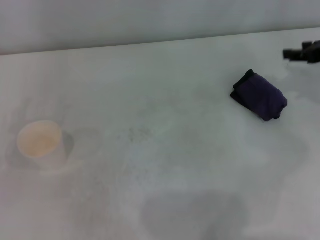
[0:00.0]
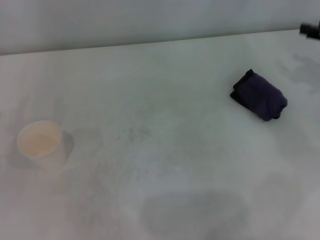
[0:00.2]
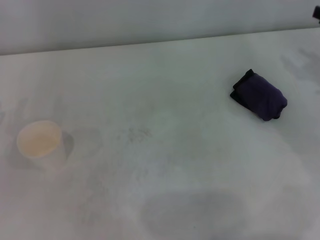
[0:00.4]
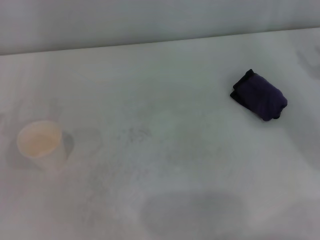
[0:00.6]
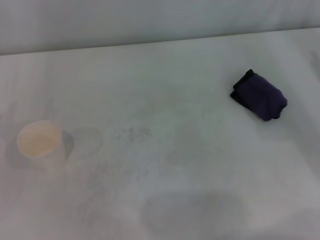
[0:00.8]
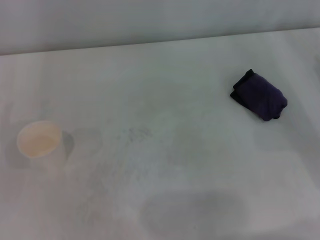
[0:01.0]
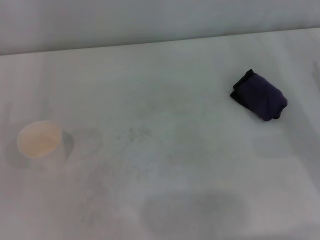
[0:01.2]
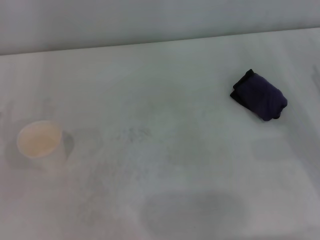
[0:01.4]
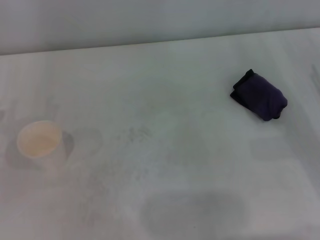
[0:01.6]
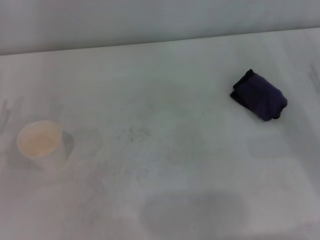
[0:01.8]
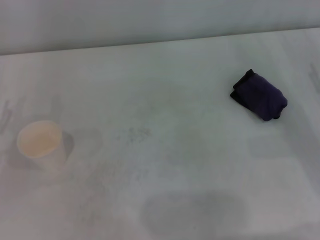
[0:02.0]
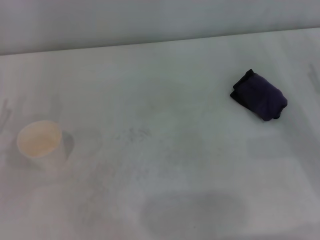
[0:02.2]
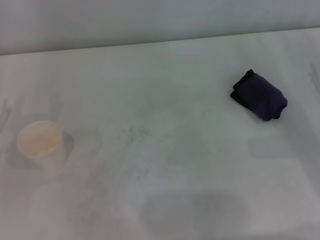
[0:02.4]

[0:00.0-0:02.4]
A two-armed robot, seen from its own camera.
0.0 to 1.2 s: The right gripper moves downward and backward, about 10 cm.

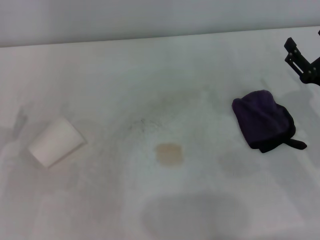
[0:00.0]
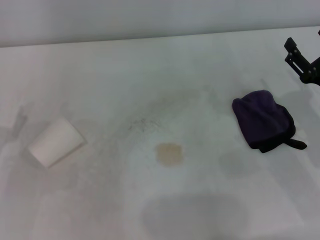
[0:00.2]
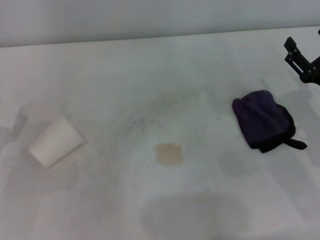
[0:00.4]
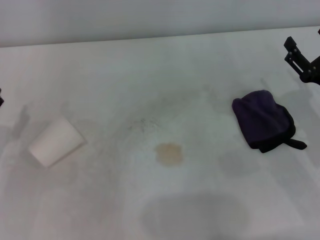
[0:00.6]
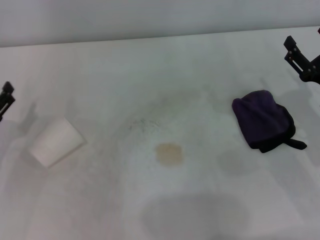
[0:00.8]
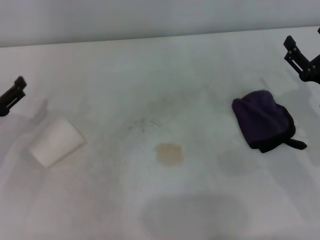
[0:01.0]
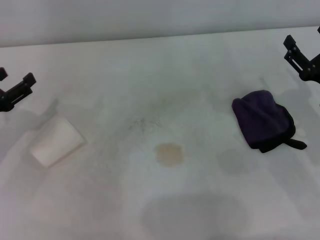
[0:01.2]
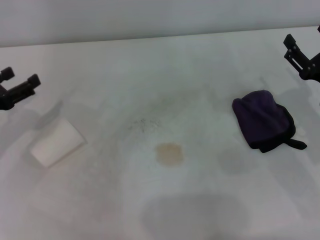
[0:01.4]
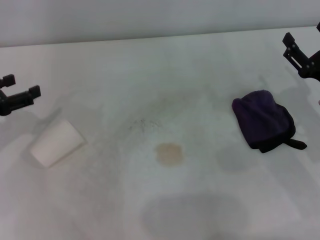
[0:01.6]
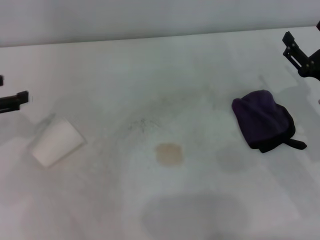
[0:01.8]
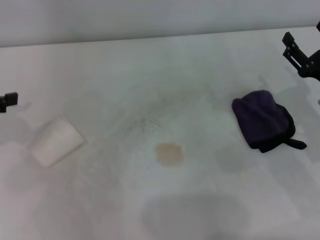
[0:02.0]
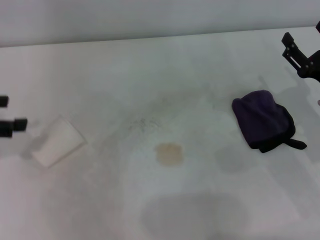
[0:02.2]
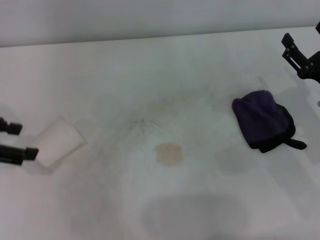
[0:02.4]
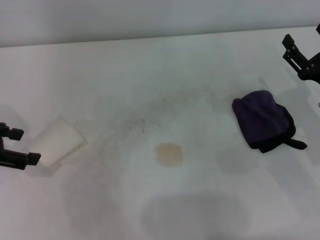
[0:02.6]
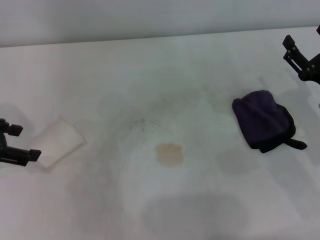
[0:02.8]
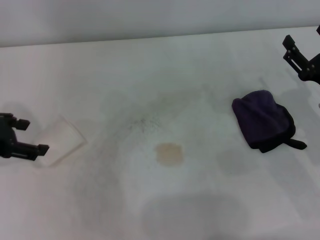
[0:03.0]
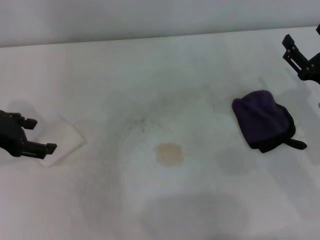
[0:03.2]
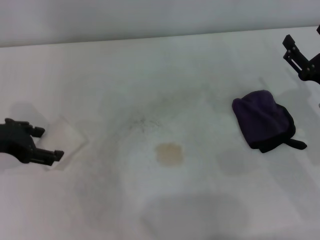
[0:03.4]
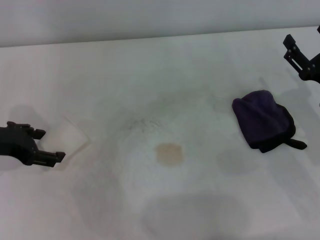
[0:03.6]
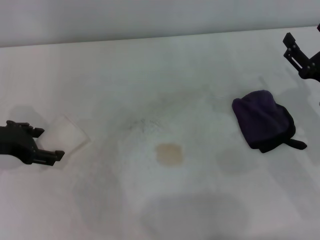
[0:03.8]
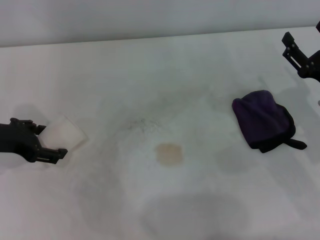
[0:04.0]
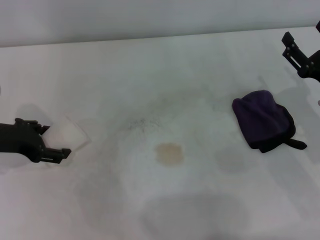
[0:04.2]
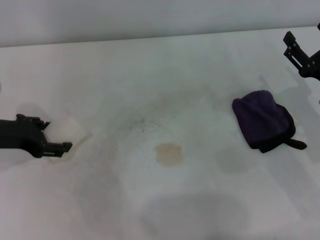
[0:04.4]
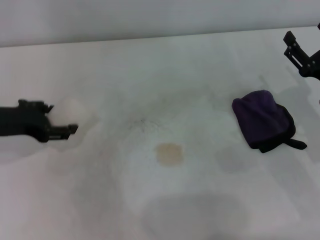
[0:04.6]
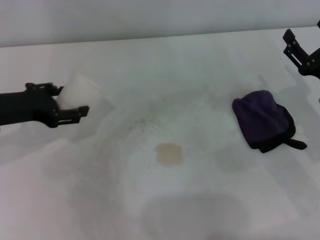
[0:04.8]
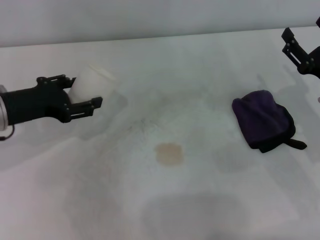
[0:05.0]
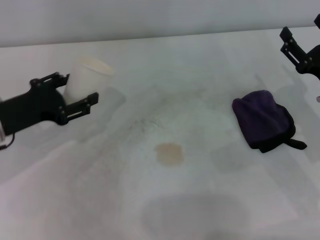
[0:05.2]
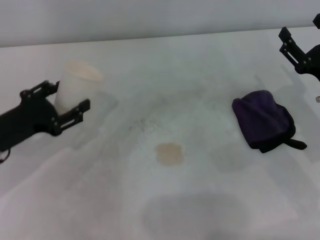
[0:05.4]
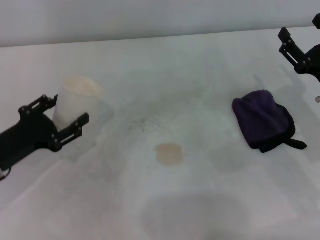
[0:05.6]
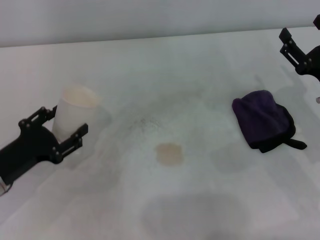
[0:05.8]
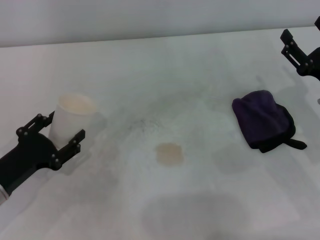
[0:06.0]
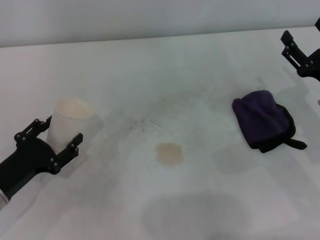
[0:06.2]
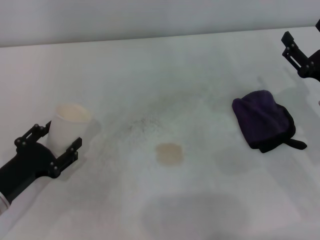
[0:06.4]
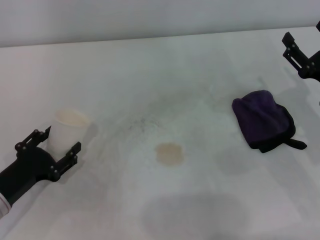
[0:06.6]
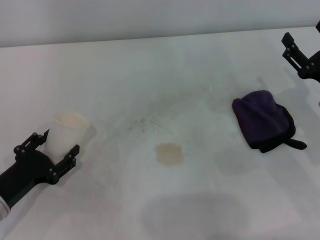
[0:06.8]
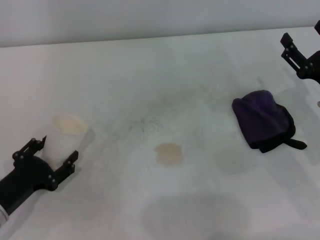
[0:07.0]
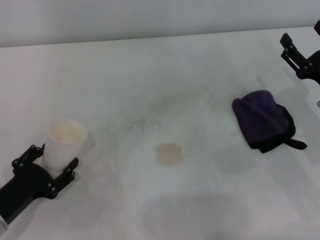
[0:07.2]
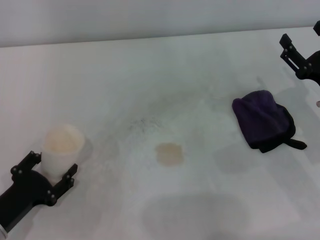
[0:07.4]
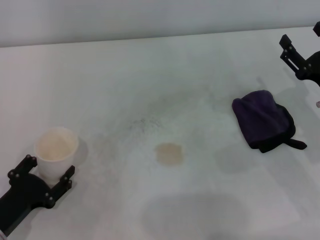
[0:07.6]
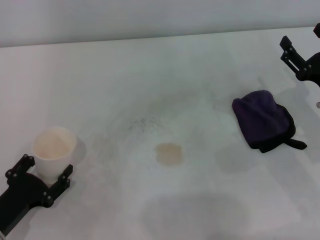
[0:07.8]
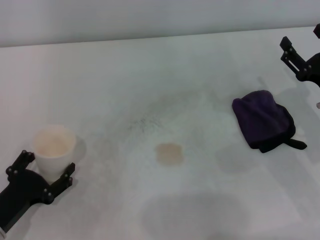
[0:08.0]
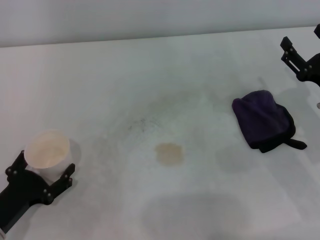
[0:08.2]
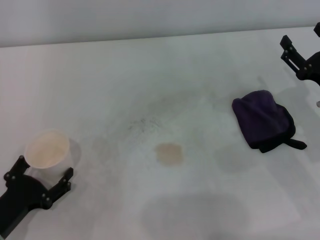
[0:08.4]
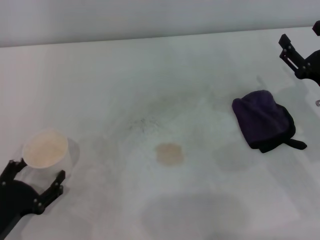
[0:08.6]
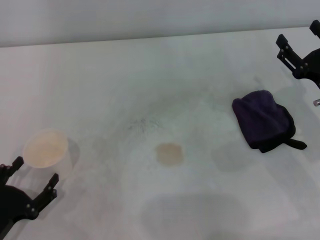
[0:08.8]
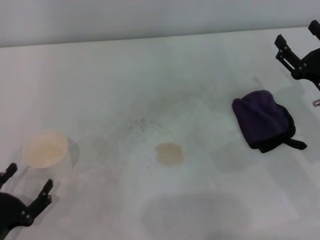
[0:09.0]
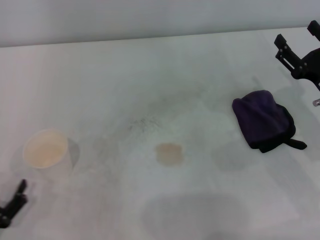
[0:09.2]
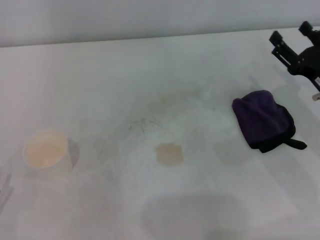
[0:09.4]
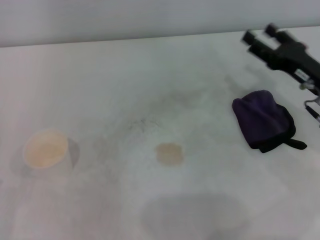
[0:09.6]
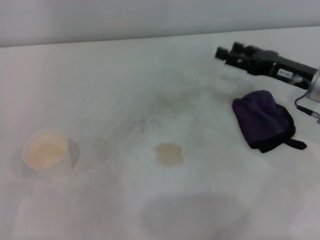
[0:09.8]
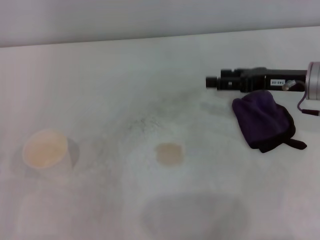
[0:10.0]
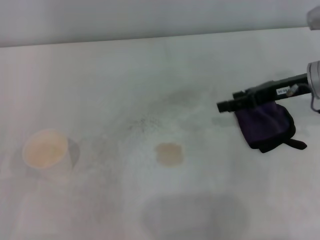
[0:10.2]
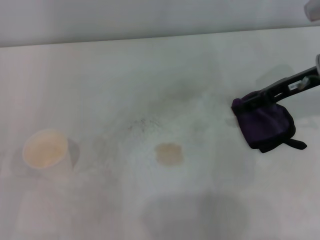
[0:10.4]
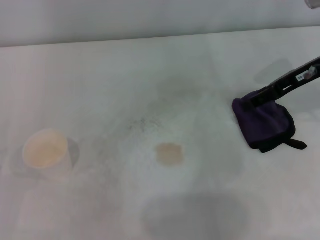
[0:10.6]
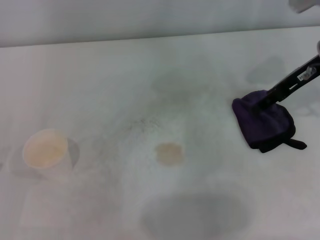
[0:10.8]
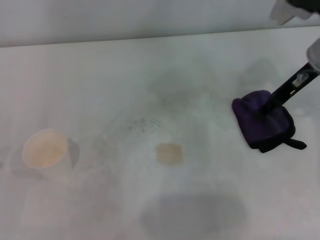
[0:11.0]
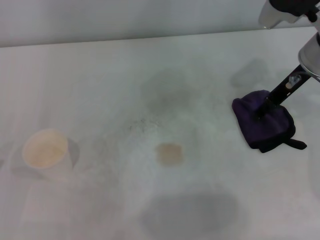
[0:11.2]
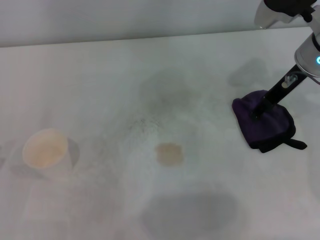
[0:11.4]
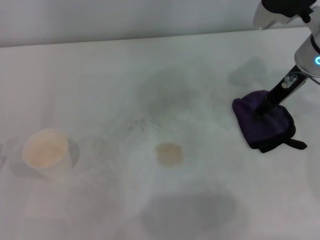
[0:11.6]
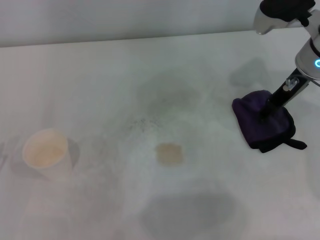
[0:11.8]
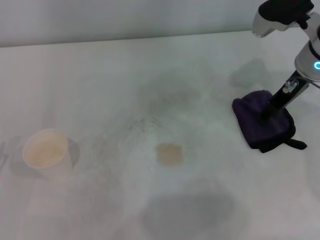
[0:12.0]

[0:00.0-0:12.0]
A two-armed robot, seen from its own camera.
Step, 0.0 to 3.8 s: Grasp the paper cup with the left gripper.
Step, 4.0 to 8.0 s: Stand the paper cup upright with the left gripper.
0.0 to 1.6 s: The left gripper travels forward and upward by about 10 cm.
1.6 to 3.0 s: The left gripper heads upward, covering roughly 5 cm.
3.0 to 4.4 s: The left gripper heads downward, covering some 5 cm.
4.4 to 6.0 s: The left gripper goes some 15 cm backward and downward, and closes its fingers.
6.0 to 7.6 s: The left gripper heads backward, covering approximately 5 cm.
7.6 to 9.0 s: The left gripper opens its fingers.
9.0 to 10.4 s: The right gripper travels upward and forward by approximately 15 cm; the left gripper ends up about 5 cm from where it was.
10.4 to 12.0 s: The right gripper moves some 5 cm.

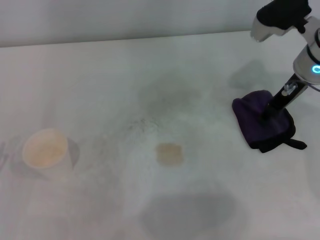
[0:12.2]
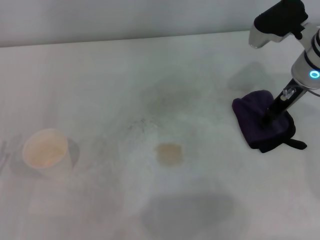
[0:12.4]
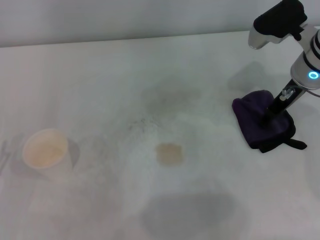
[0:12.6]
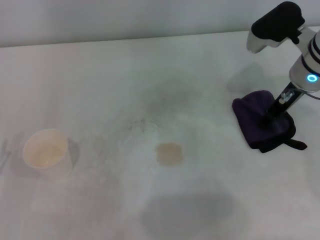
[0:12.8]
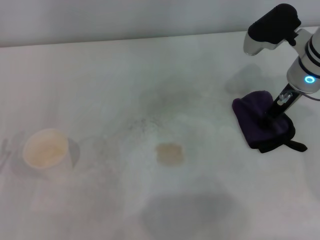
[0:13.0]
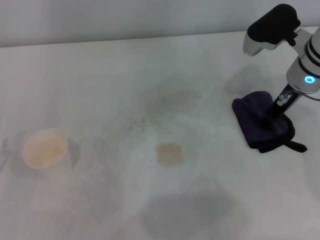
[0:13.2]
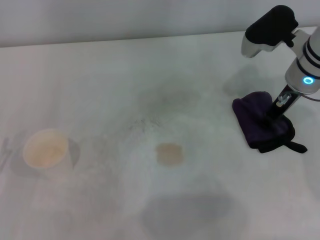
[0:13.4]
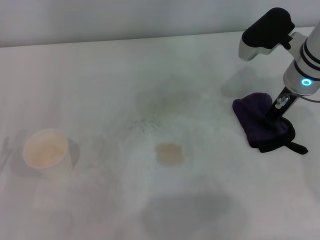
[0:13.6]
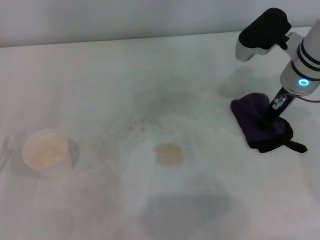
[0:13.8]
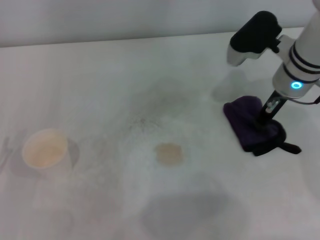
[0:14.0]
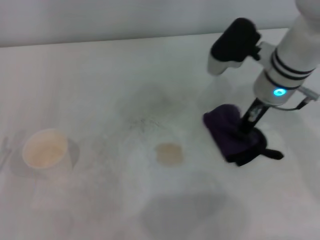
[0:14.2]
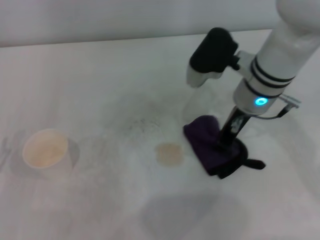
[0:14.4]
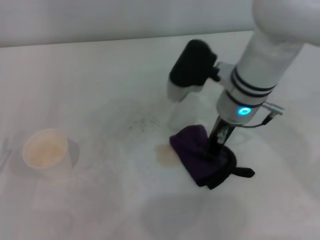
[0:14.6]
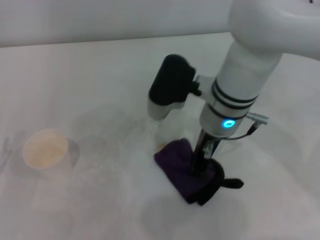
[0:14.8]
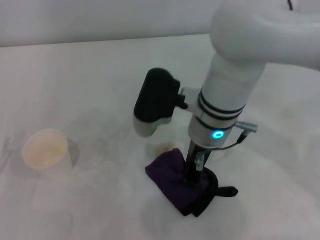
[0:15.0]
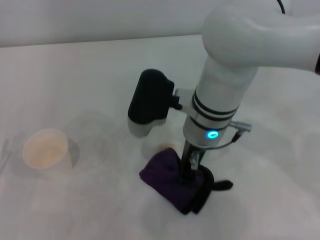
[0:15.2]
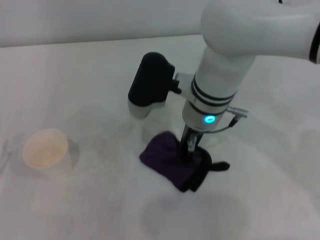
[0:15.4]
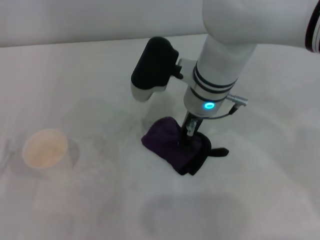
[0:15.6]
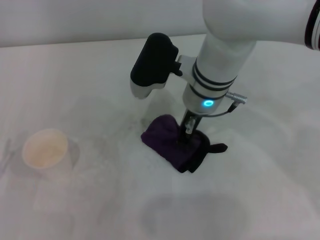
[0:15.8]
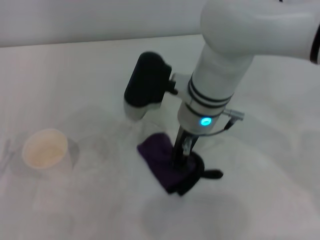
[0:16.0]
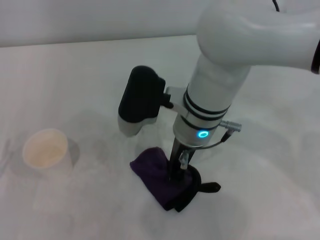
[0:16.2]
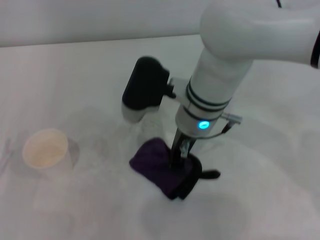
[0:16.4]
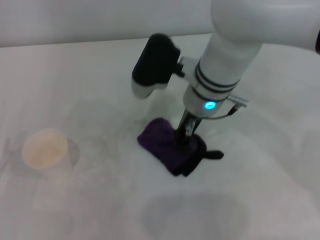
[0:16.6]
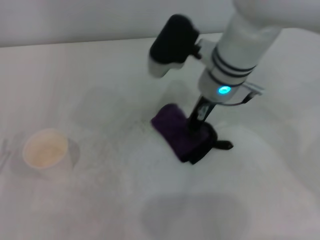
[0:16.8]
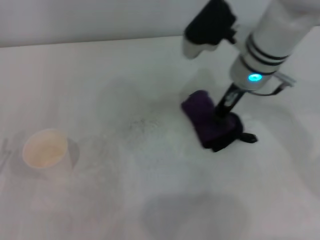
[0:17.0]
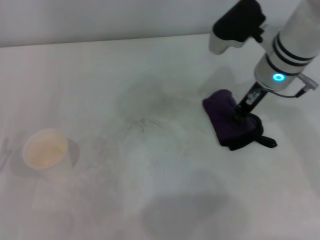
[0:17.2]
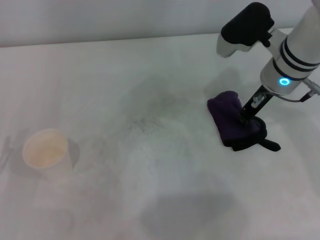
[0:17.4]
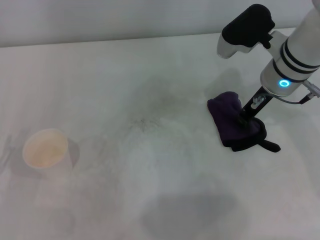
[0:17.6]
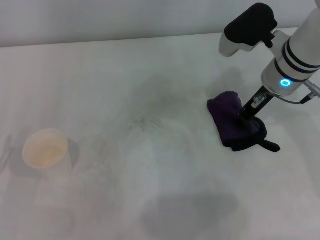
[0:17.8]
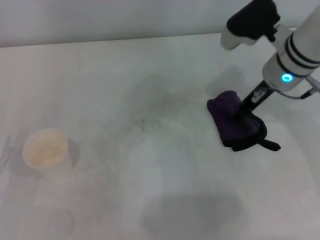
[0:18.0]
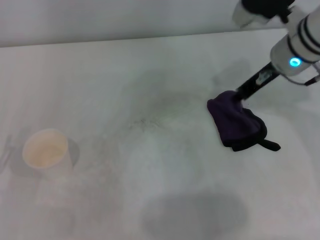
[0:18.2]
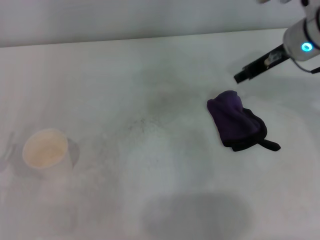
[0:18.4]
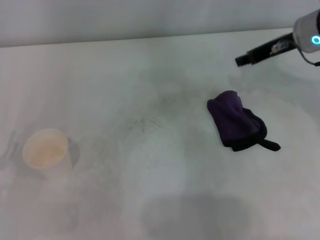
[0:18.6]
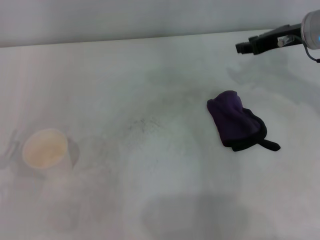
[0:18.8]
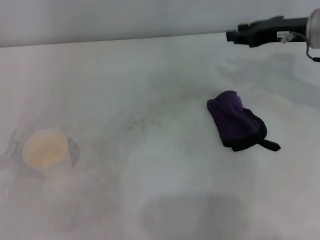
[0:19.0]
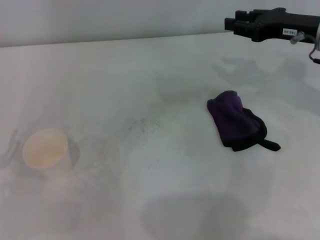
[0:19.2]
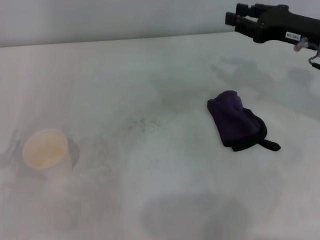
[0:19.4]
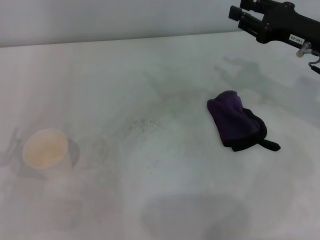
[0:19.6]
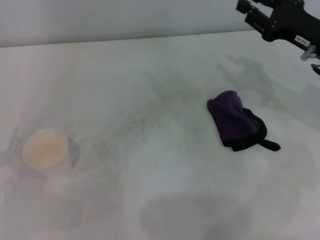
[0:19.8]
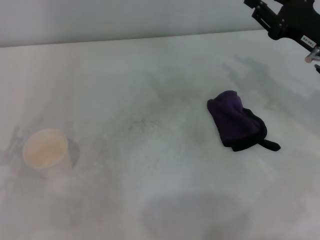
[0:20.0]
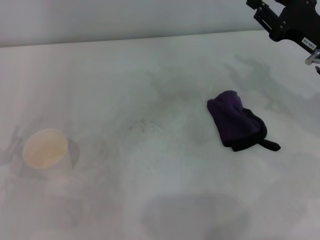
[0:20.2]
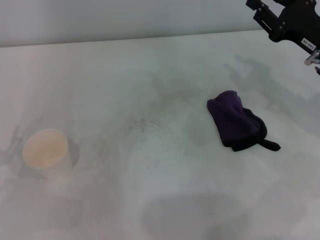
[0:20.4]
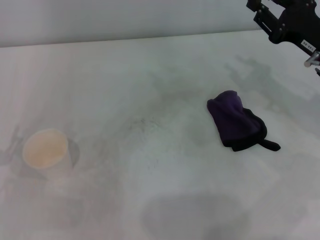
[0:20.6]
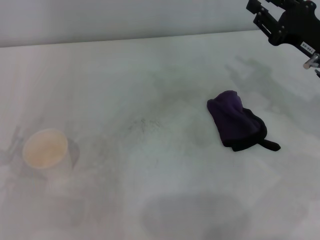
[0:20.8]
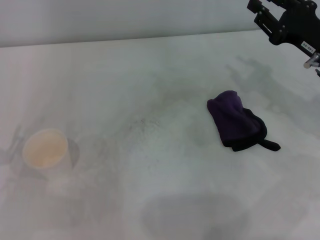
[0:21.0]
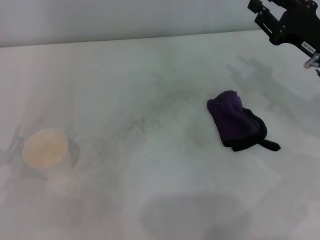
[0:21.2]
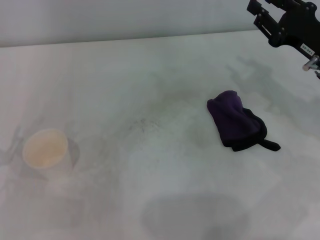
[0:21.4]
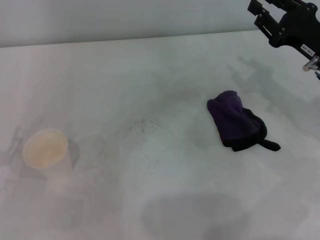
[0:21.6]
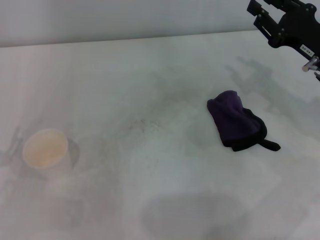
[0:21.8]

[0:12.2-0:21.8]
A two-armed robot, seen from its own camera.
Step, 14.0 to 17.2 s: Wipe the stains off the table with the right gripper.
Step, 17.6 to 18.0 s: Place the rag on the table with the right gripper.
12.2 to 13.8 s: The right gripper closes its fingers.
13.8 to 15.4 s: The right gripper heads to the left, covering roughly 15 cm.
15.4 to 17.0 s: The right gripper travels to the right by some 10 cm.
17.0 to 18.6 s: The right gripper heads to the right, covering approximately 10 cm.
18.6 to 20.2 s: The right gripper shifts about 10 cm backward and downward.
20.2 to 21.8 s: The two grippers keep their place.
